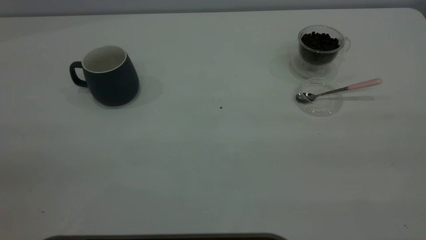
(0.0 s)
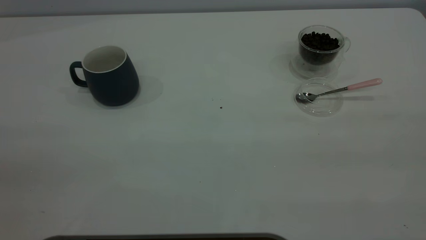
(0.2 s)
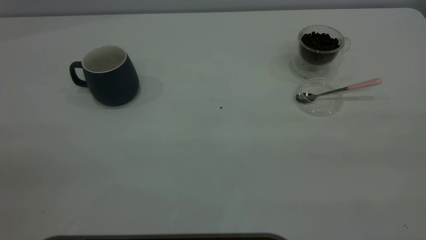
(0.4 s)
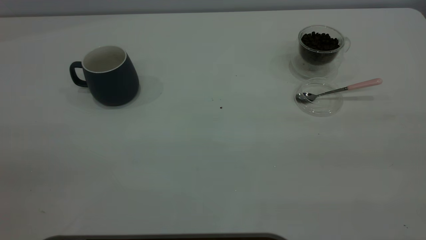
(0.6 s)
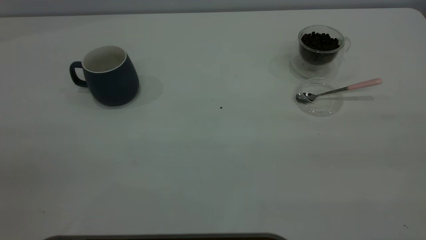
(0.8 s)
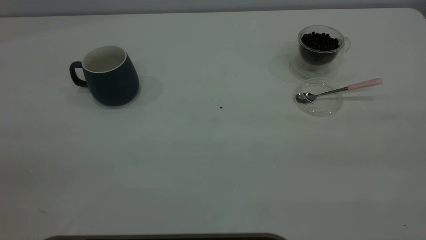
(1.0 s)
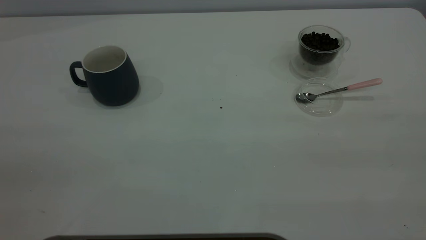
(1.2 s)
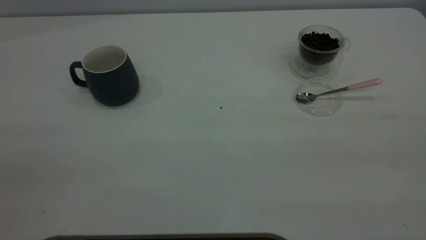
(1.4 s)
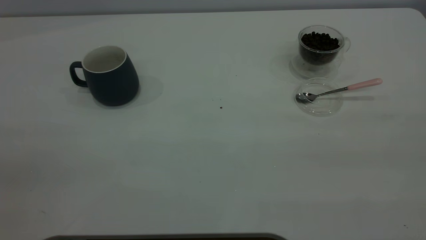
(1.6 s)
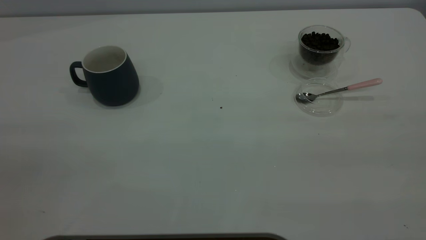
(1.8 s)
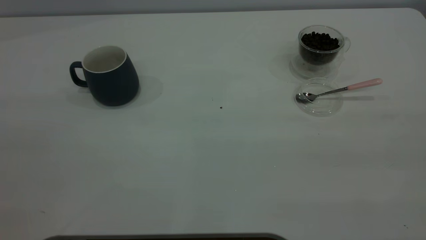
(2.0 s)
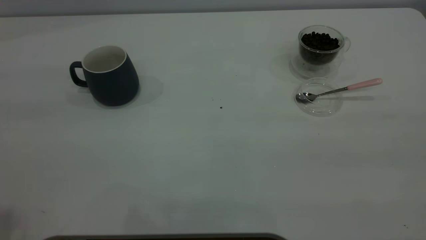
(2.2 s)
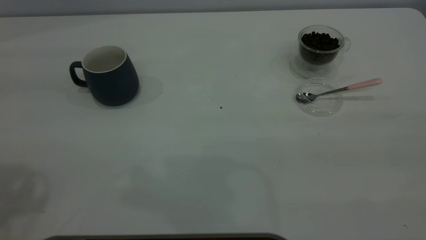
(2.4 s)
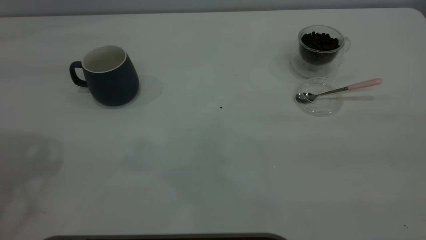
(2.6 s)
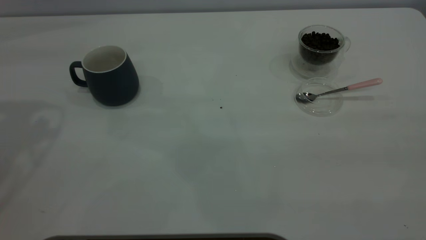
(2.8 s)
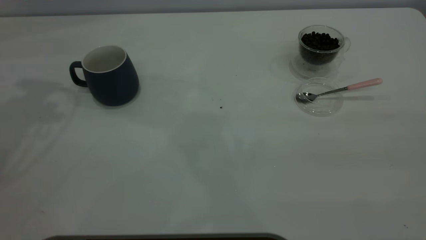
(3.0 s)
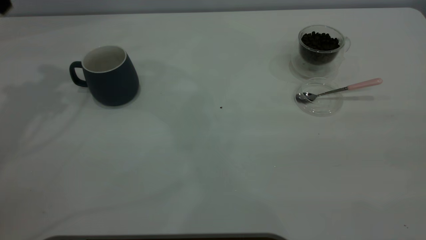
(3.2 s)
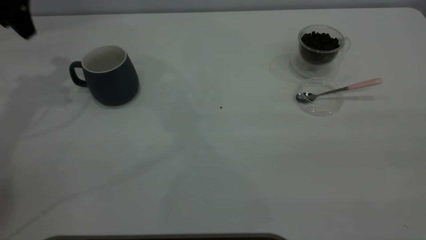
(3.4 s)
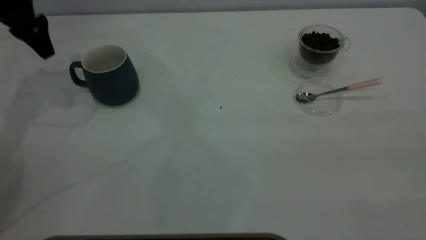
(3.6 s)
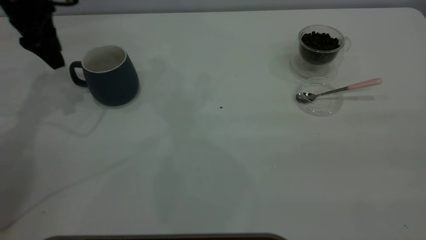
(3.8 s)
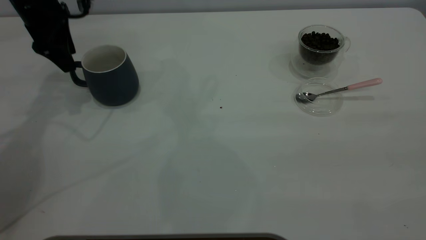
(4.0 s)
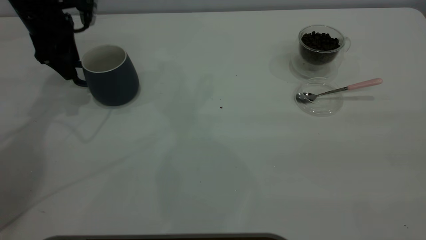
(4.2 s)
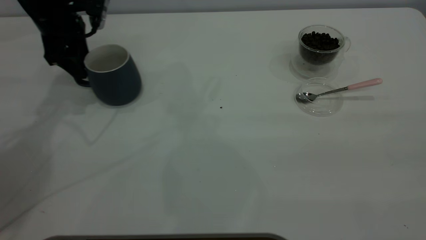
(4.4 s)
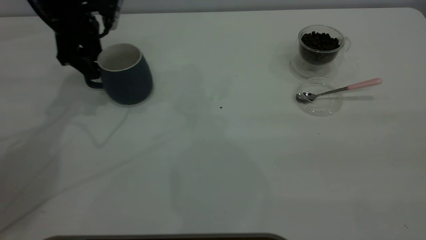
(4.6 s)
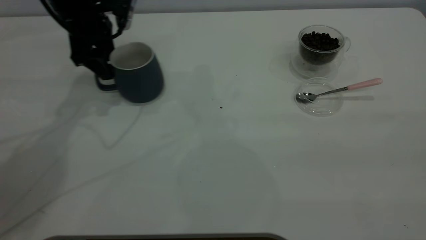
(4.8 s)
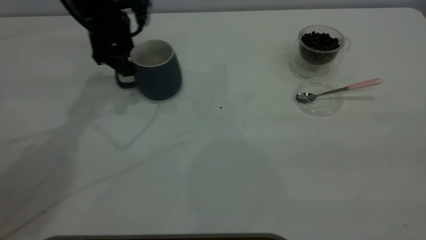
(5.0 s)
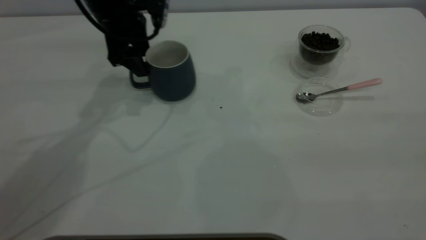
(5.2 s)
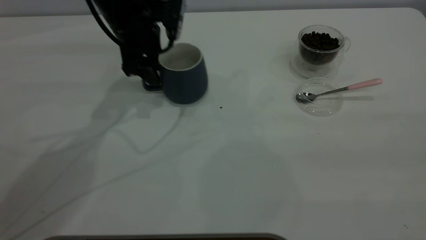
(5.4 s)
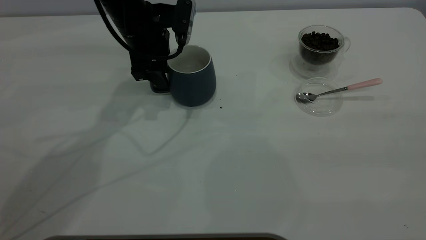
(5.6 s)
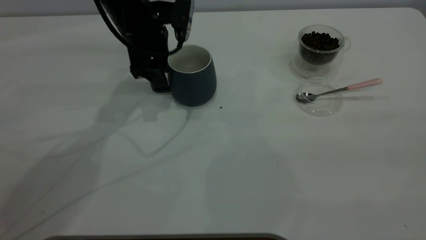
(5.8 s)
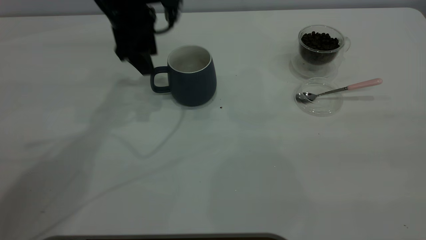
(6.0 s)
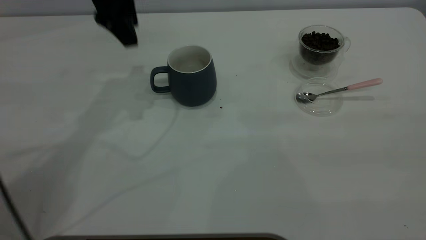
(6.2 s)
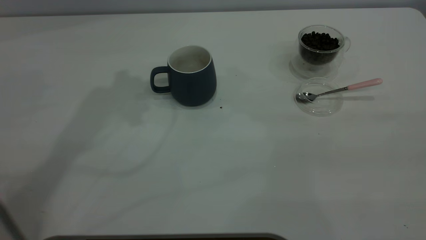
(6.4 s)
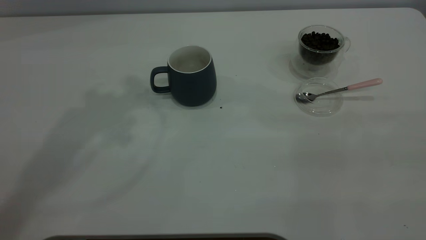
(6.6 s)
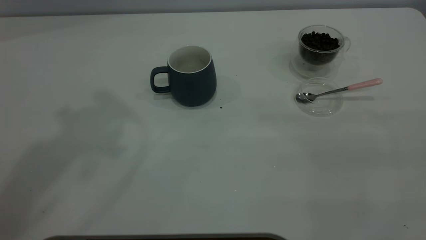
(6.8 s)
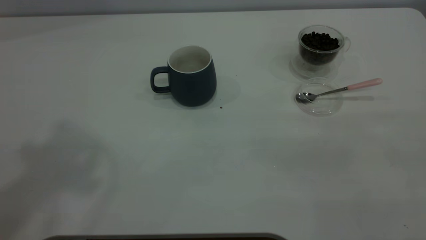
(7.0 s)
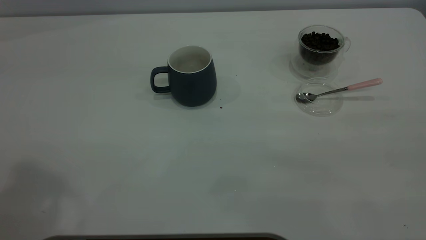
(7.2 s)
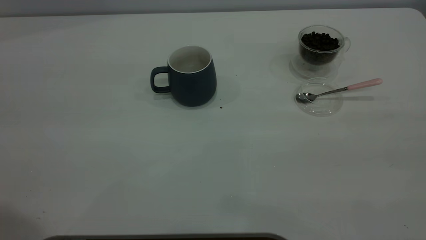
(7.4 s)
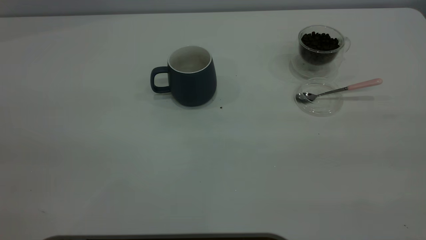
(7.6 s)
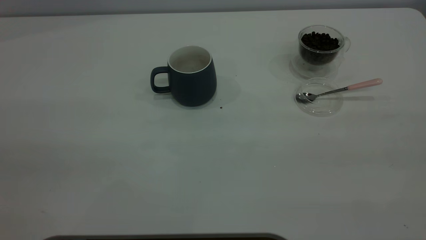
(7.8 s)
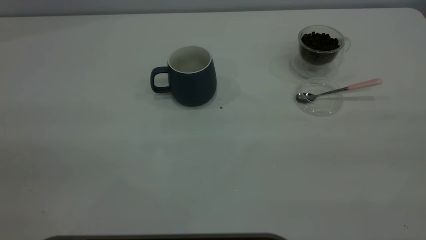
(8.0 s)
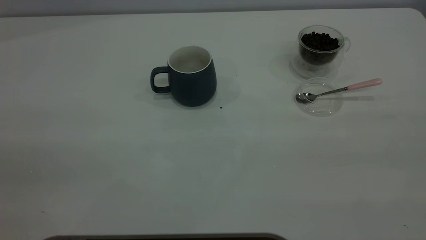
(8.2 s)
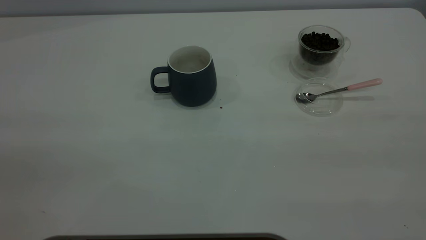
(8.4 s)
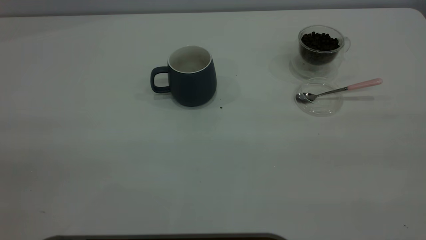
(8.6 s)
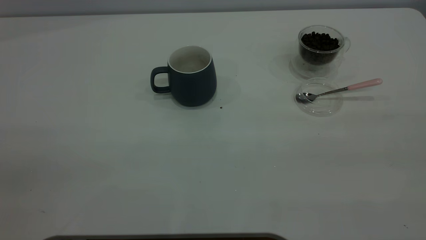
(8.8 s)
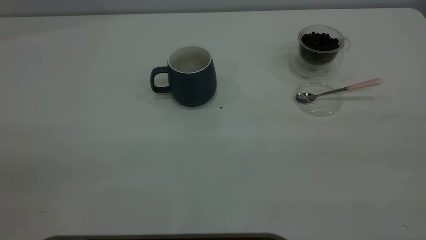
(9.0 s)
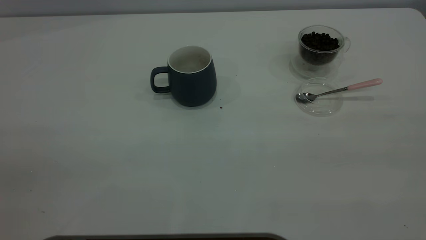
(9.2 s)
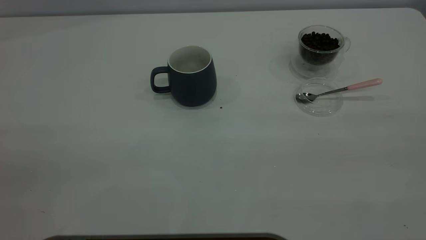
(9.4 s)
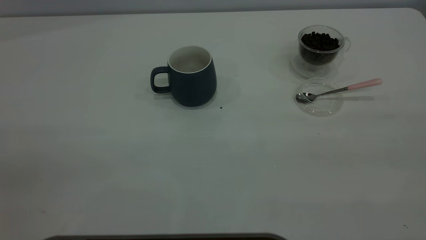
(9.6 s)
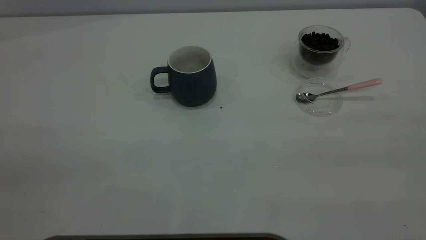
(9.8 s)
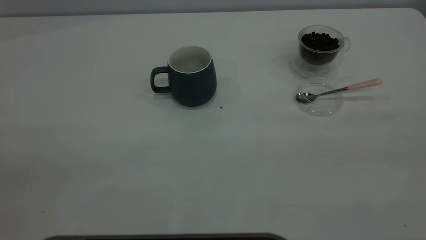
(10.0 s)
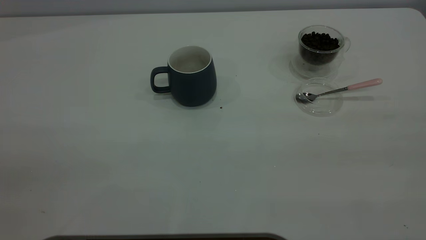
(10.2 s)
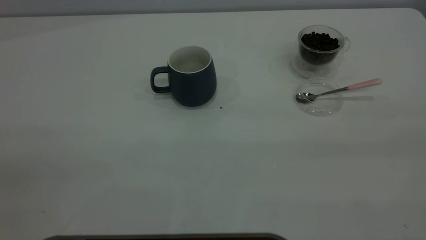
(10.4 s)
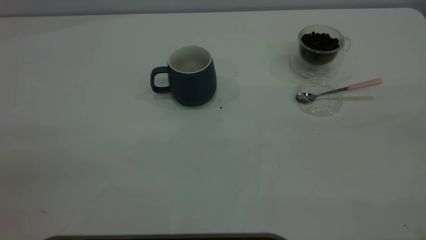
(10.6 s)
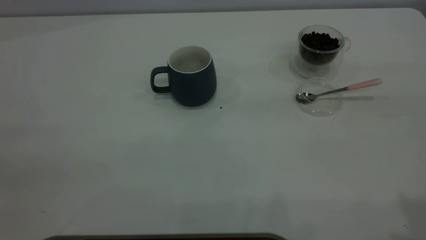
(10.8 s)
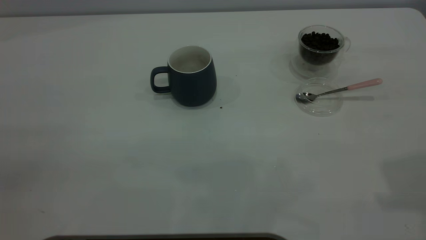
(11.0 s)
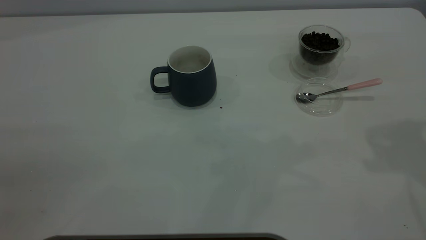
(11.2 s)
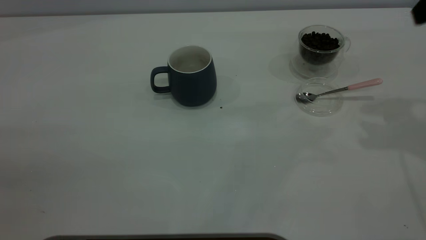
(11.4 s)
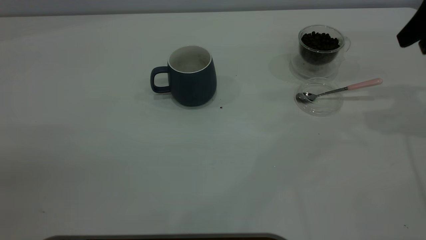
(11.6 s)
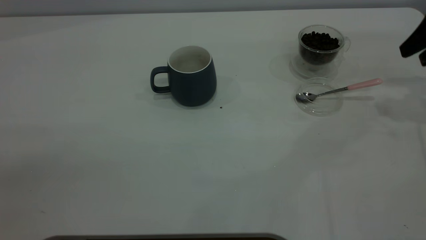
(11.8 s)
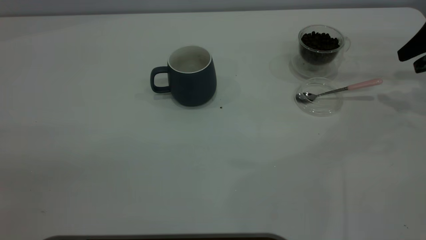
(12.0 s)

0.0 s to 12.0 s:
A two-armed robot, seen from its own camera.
Task of the whole recording: the left gripper place the grey cup in the center of the table, the right gripper take the pink spoon from the cup lid and scoop out the coffee beans from the coffee cup and put them into the grey cup, the right gripper put the spoon back into the cup lid.
Step, 0.0 to 5.8 s: Move the cup to the center of view.
0.0 to 1.6 s: Both grippers stay put.
3.0 to 4.4 s: The left gripper travels downward and forward by roughly 20 cm.
4.4 to 6.0 s: The left gripper travels to the right by about 10 cm.
6.0 to 7.6 s: The left gripper heads backward and upward, covering roughly 40 cm.
10.4 to 12.0 s: The right gripper travels forward and downward by some 40 cm.

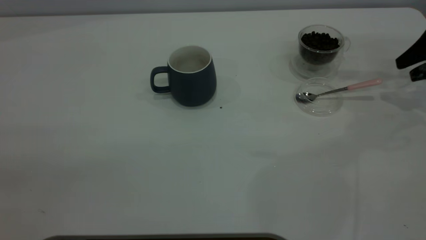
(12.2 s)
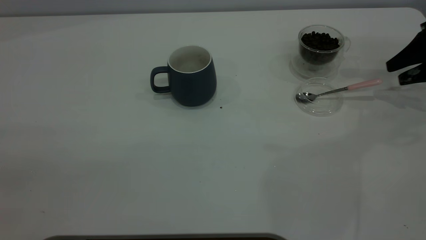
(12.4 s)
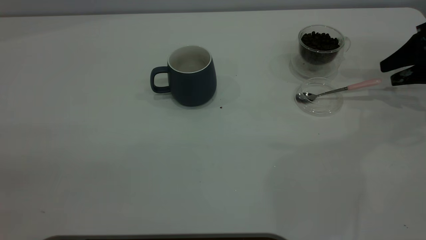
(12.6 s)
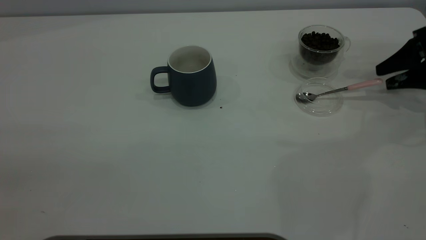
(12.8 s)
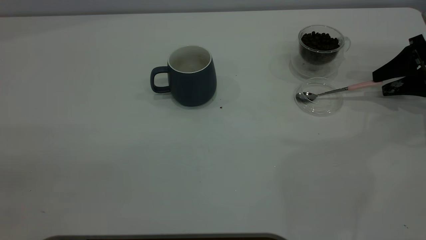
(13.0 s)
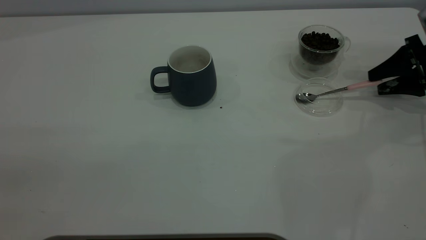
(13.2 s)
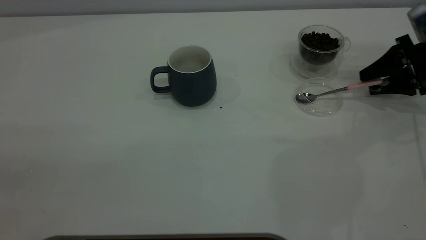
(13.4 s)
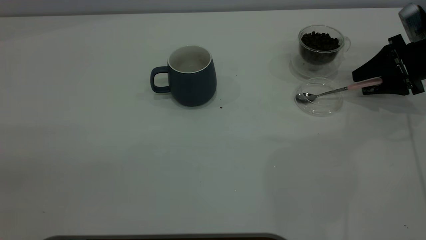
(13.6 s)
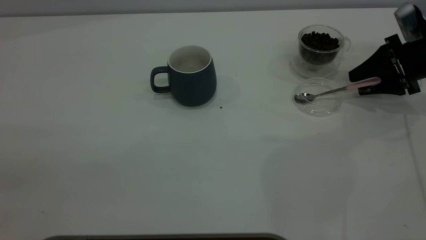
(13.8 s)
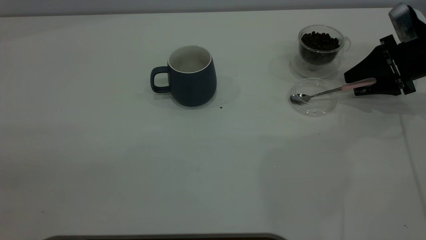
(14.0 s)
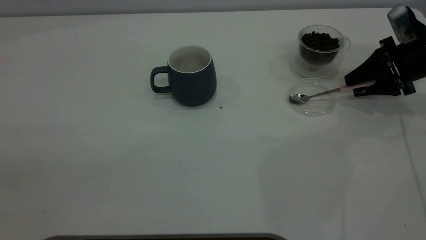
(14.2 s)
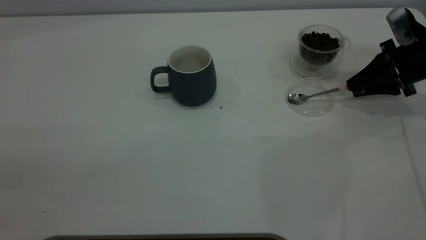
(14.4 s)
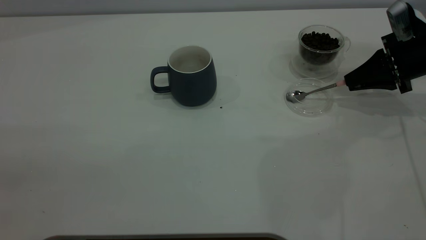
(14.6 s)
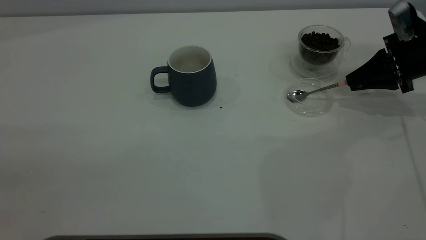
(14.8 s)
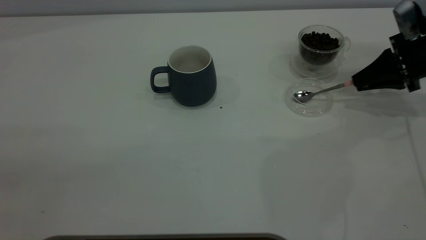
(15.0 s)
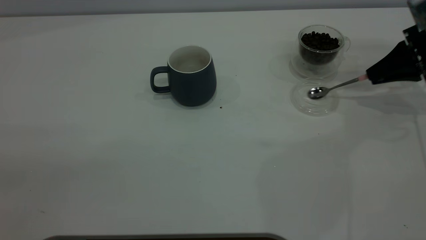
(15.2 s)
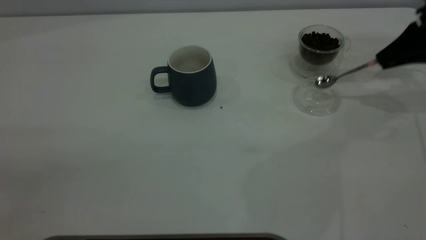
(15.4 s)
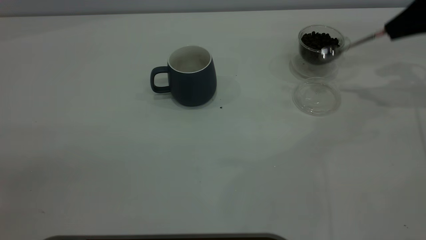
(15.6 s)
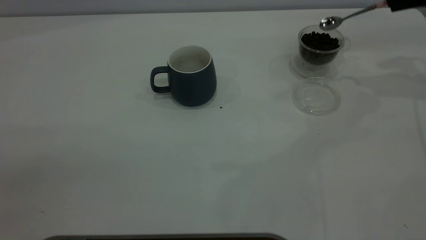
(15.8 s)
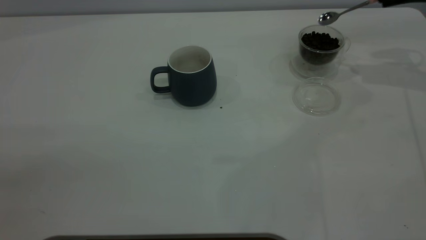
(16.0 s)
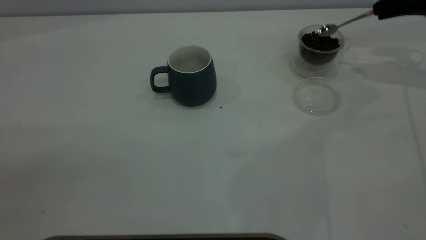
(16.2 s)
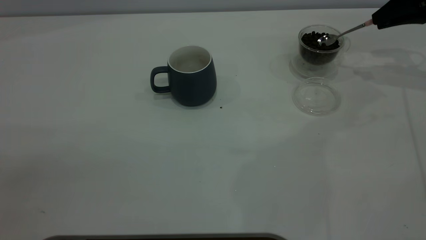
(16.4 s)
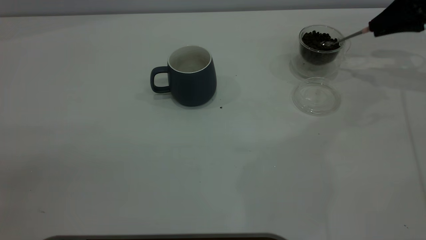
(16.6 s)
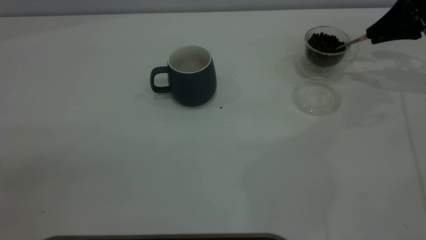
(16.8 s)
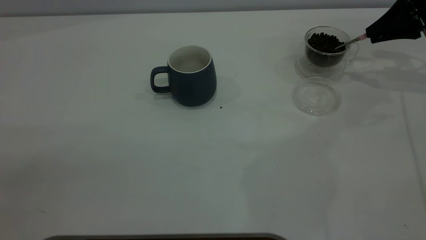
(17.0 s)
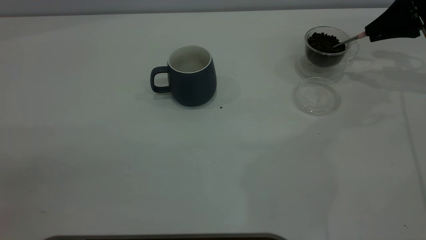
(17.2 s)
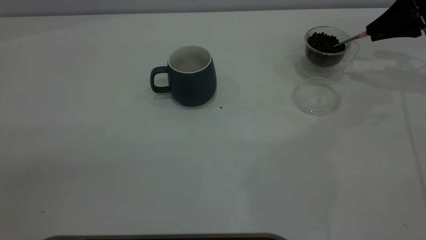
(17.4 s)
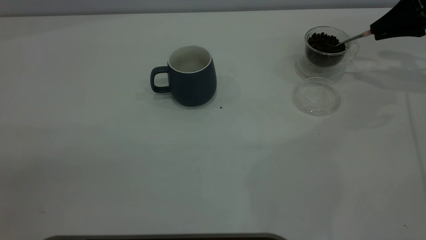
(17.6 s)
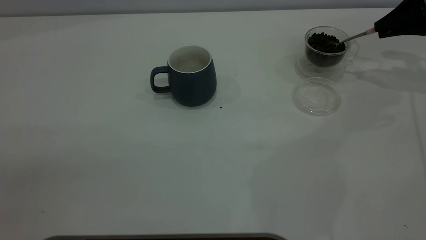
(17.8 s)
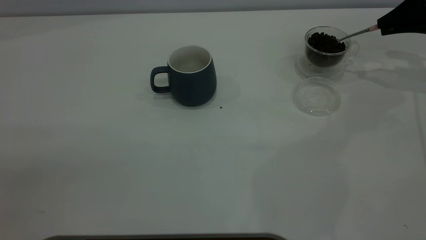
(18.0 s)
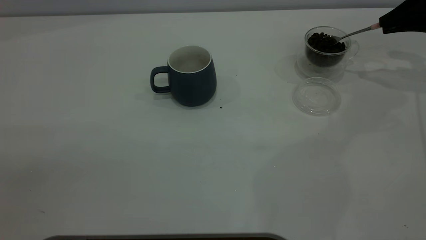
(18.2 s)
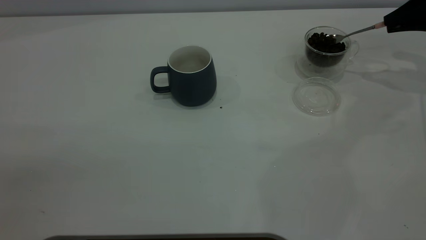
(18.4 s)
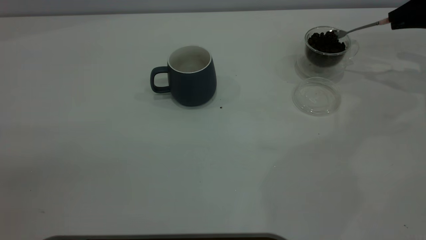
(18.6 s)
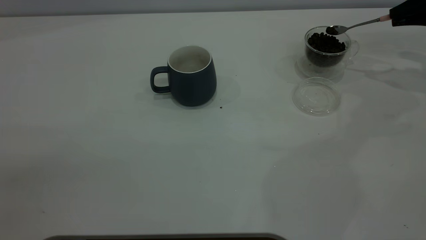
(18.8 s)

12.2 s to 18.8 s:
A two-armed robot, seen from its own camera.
Task of the whole recording: the left gripper place the grey cup in the center of the table, the right gripper take the pink spoon from the cup lid and scoop out the coffee beans from the coffee cup and put them into the grey cup, the right gripper put the spoon back into the cup lid.
Step, 12.2 to 15.4 s: Pick up the spoon.
12.2 to 13.8 s: The right gripper moves to the left and downward, some 10 cm.
13.8 to 15.4 s: The right gripper shifts approximately 10 cm upward, and closes up.
17.2 to 18.8 s: The grippers make only small movements.
